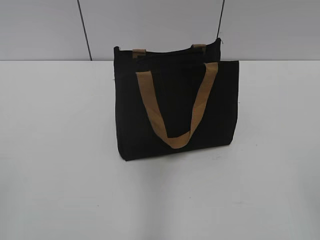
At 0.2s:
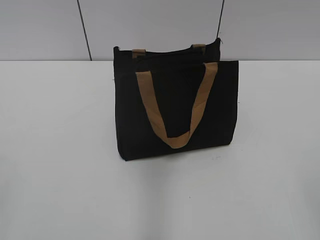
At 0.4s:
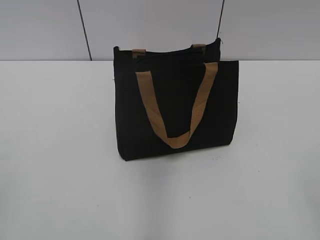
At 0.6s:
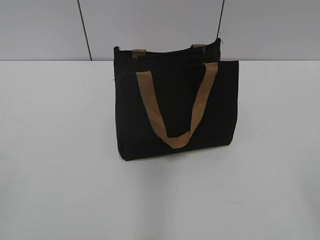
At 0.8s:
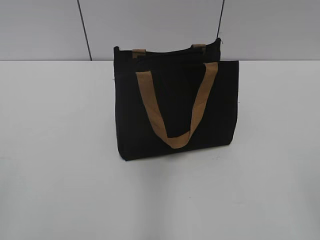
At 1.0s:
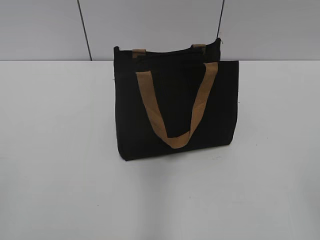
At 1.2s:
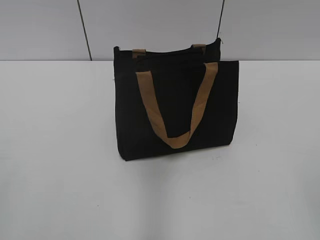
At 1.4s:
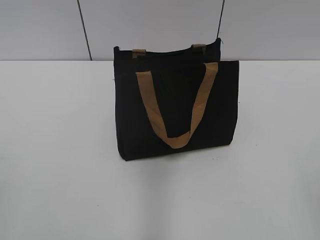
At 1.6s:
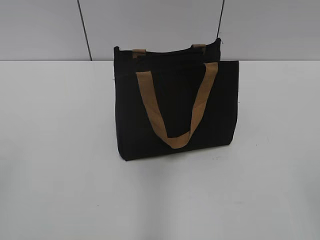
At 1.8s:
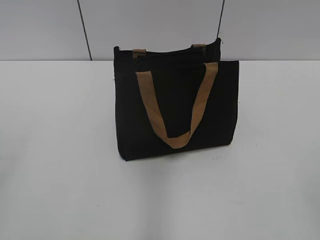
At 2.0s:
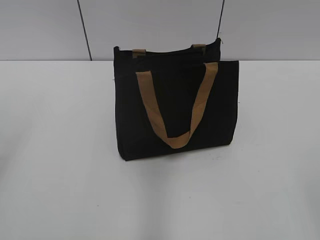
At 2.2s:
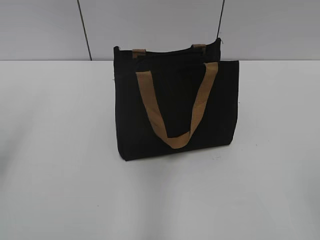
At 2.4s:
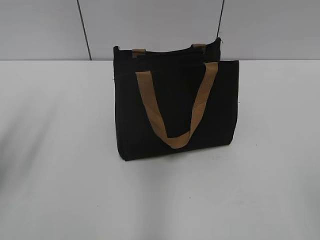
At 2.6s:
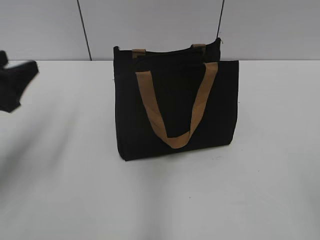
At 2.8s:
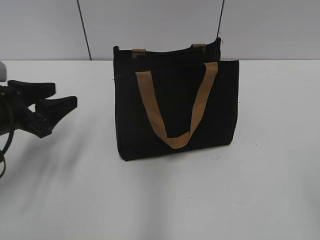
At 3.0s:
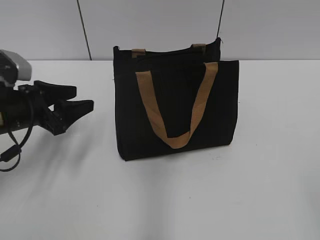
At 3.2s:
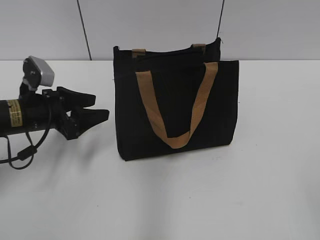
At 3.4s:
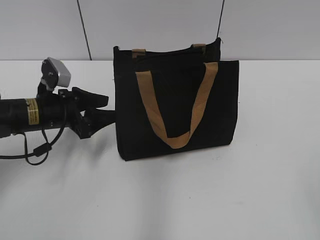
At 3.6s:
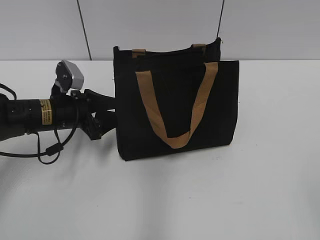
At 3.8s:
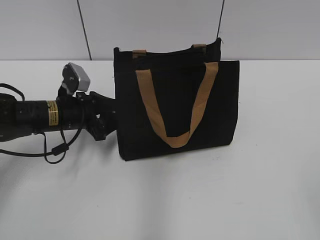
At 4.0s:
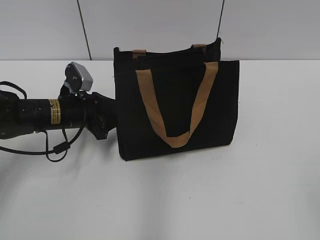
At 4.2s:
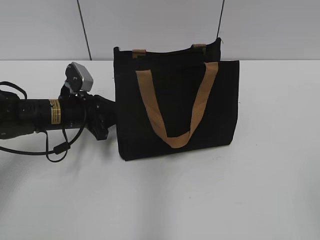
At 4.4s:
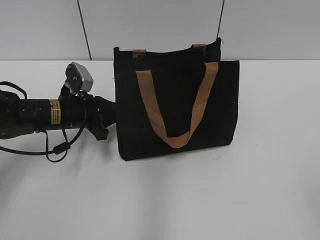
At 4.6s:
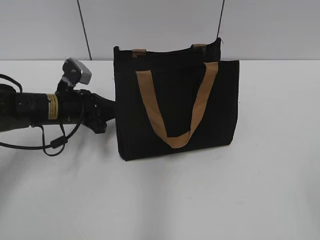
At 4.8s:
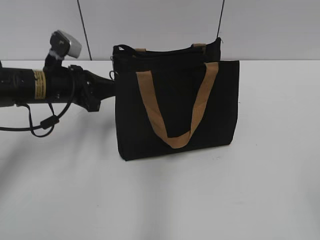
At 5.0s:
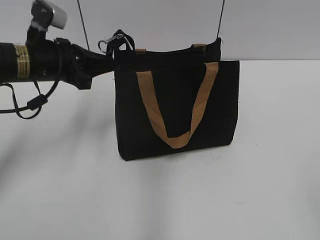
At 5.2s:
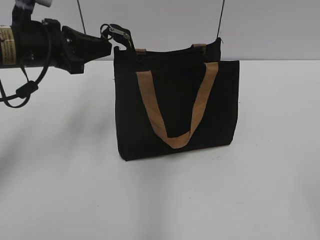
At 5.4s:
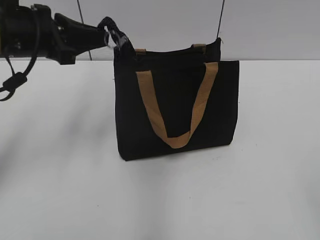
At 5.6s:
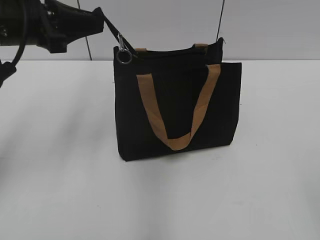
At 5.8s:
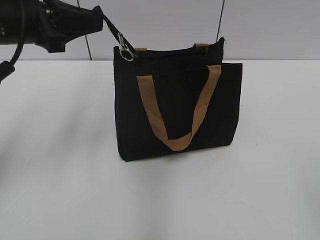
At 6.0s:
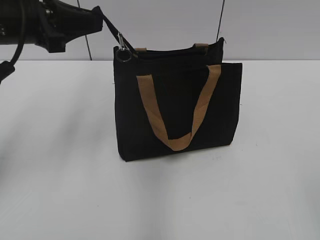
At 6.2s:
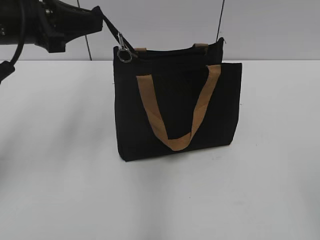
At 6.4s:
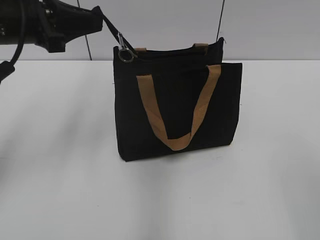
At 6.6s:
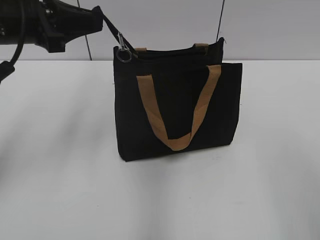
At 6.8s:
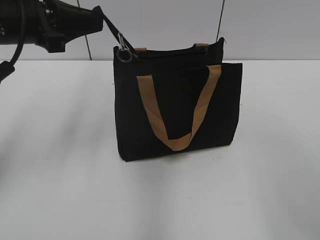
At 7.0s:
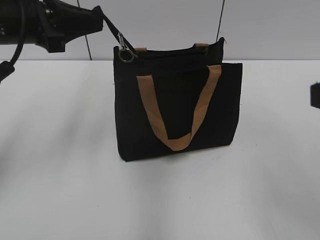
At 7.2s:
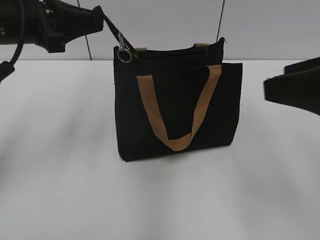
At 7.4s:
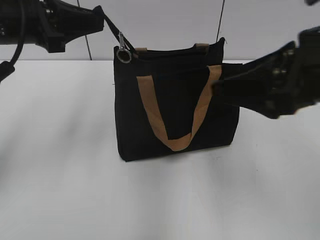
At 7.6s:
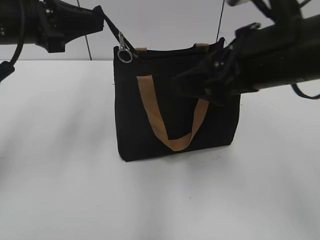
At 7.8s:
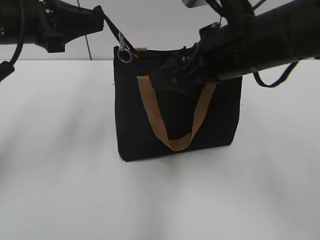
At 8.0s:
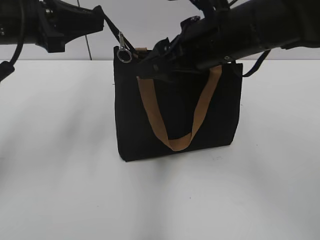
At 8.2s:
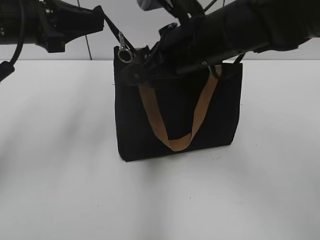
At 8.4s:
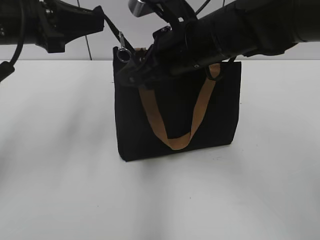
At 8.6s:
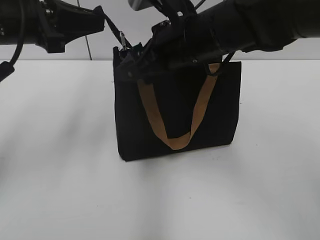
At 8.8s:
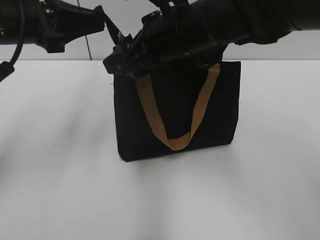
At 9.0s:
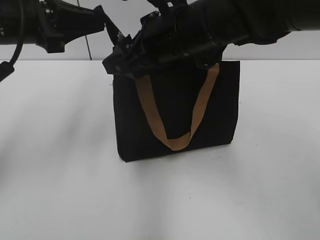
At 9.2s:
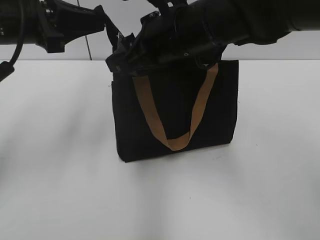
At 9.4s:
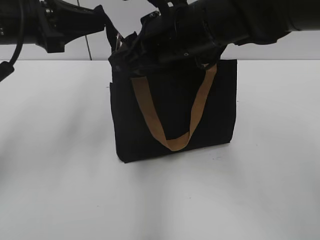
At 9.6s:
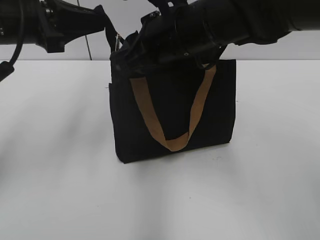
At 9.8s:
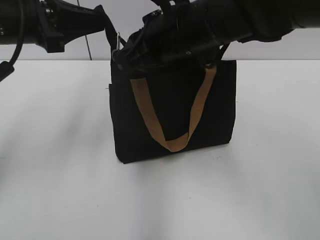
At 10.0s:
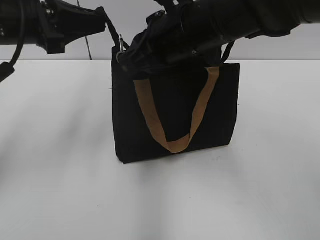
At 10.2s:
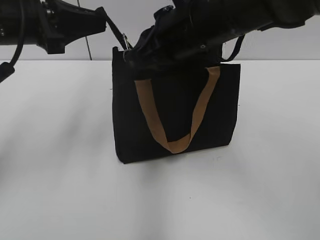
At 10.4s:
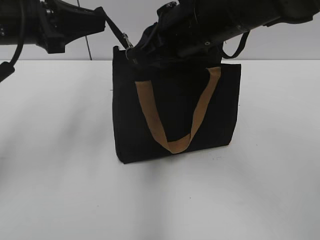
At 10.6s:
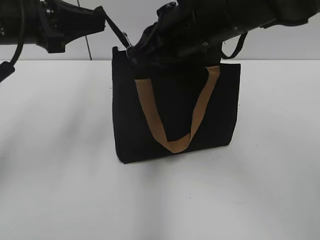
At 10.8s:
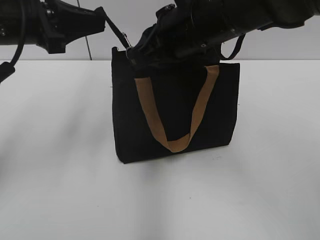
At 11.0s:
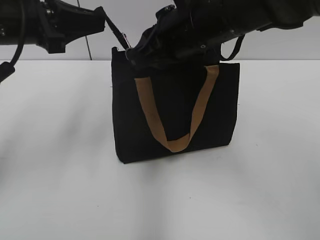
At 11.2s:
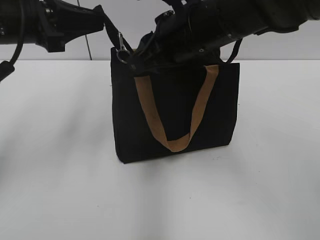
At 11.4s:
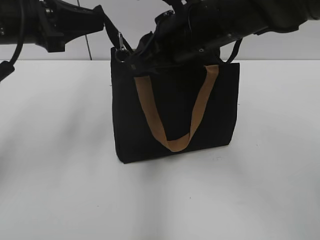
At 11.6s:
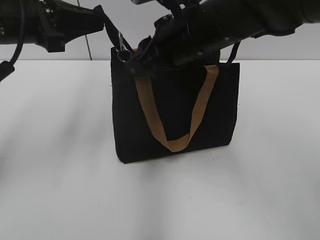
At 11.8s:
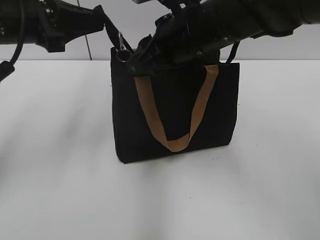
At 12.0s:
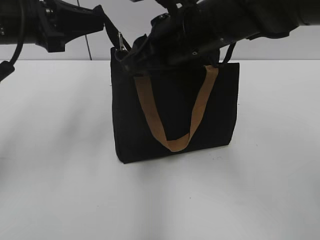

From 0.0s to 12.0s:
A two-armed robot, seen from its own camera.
From 1.6s to 3.0s: The left gripper shifts approximately 35 cm forward and downward.
From 3.0s to 4.4s: The left gripper is displaced forward, to the right and downward by some 10 cm, and closes.
From 4.4s to 6.0s: The left gripper shifts roughly 20 cm upward.
From 6.0s to 7.6s: The right gripper shifts some 25 cm forward and to the left.
From 7.6s to 9.0s: The right gripper heads to the left and forward, covering approximately 15 cm.
From 9.0s to 10.4s: The right gripper closes.
From 10.4s to 12.0s: The right gripper opens up.

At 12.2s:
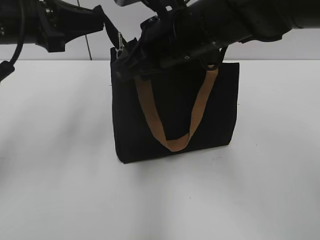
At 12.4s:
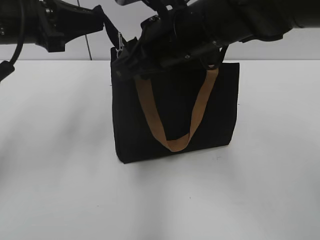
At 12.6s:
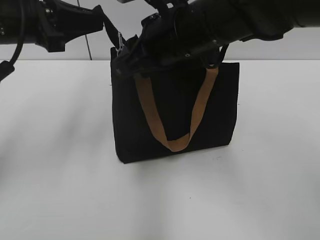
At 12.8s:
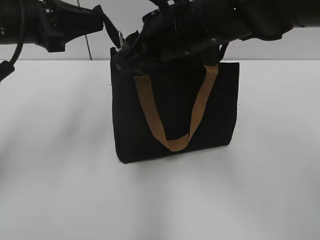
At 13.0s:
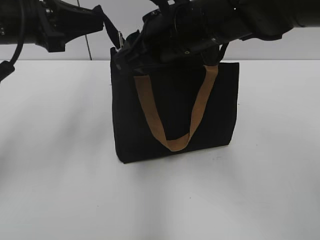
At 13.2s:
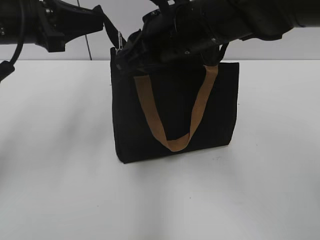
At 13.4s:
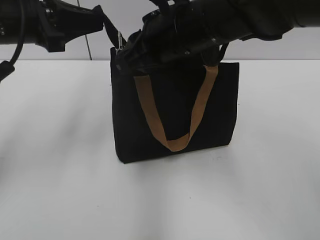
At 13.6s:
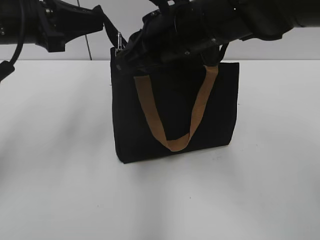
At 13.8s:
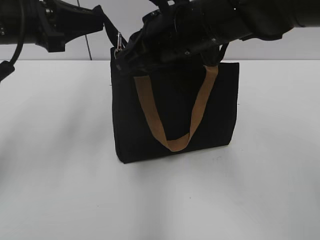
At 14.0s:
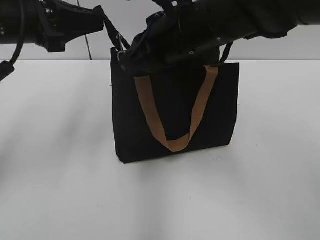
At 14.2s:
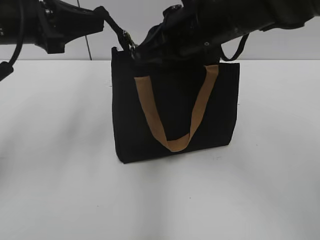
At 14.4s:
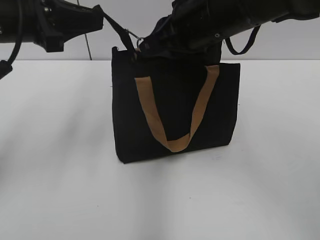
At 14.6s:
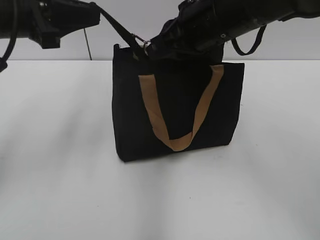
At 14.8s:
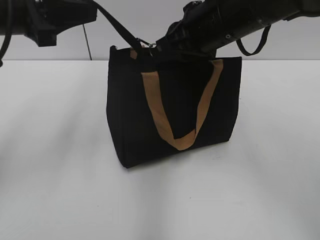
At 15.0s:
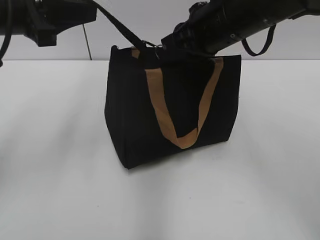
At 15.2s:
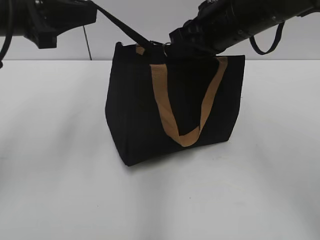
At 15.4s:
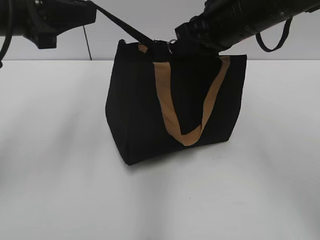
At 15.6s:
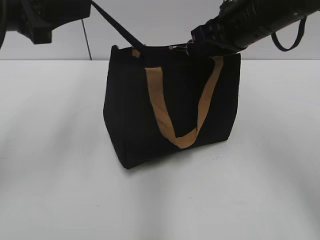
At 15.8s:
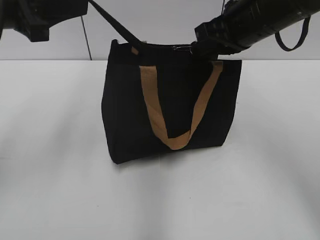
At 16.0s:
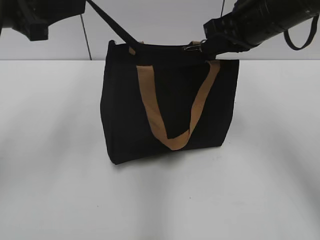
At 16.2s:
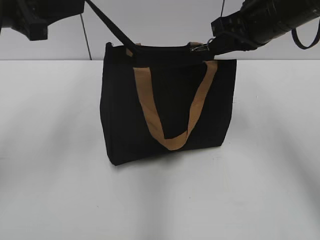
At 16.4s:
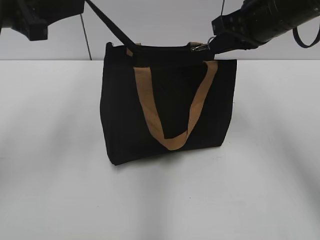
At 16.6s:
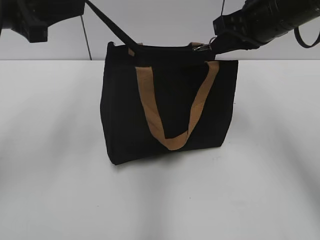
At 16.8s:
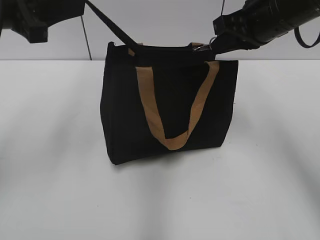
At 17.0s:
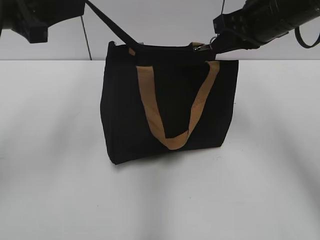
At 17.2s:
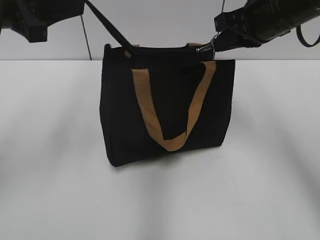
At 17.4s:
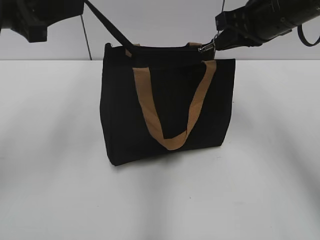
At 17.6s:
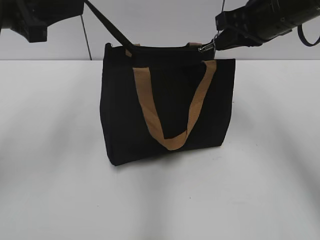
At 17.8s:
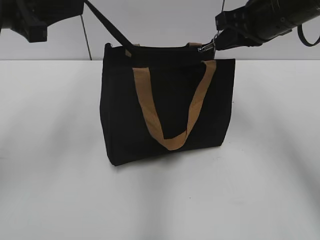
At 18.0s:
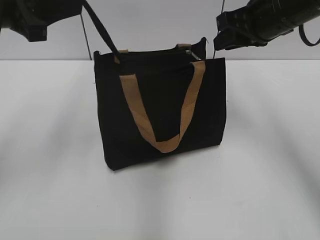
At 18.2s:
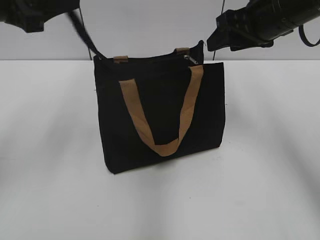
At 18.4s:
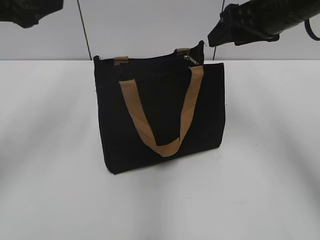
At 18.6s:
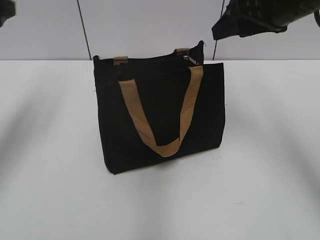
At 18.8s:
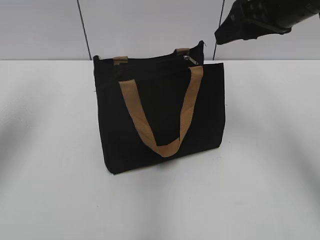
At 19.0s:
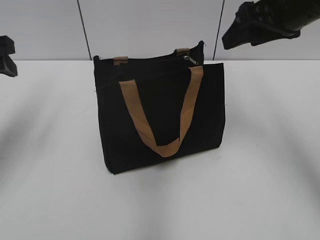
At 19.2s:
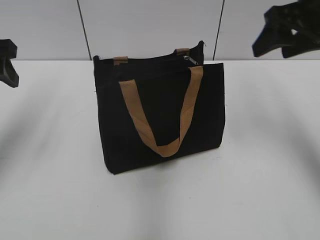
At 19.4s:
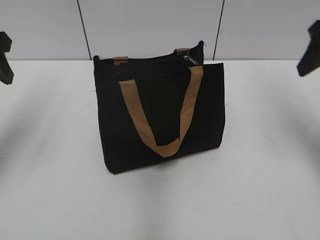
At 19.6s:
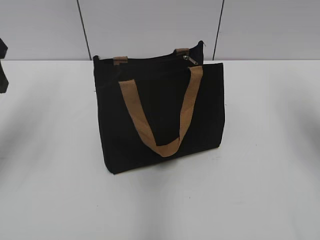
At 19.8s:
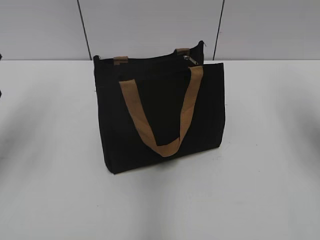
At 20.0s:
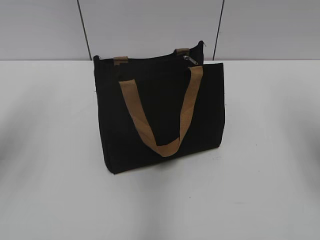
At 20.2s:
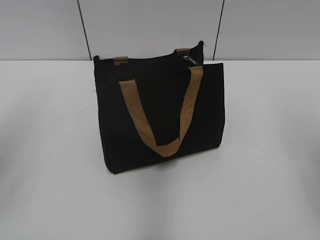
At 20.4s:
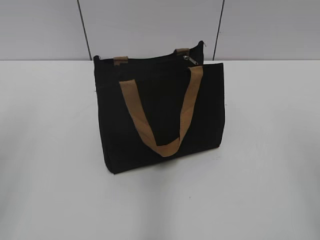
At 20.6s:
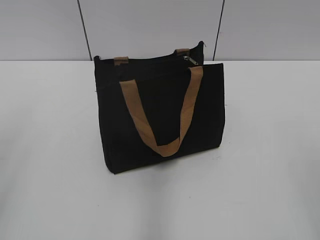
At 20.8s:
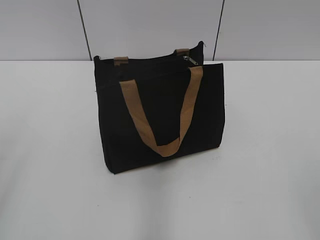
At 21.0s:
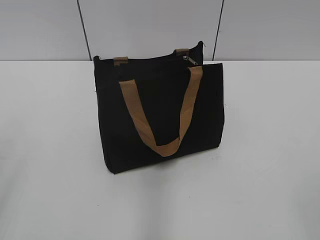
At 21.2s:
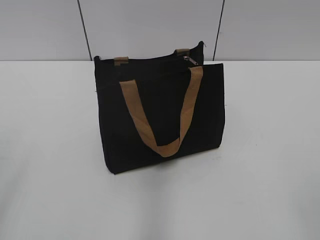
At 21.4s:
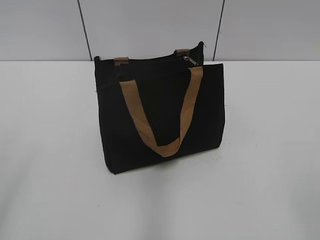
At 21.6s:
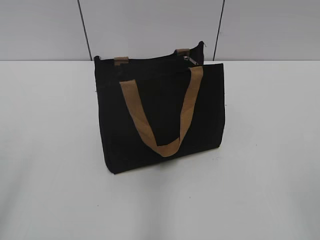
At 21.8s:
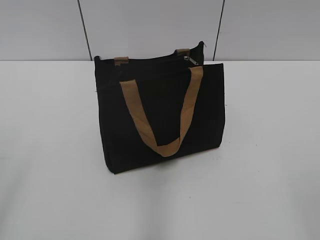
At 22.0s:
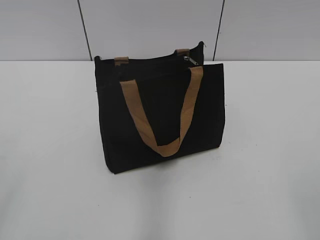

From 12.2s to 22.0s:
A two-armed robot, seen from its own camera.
Step, from 12.2s to 18.0s: Zip up the bag with your right hand.
From 12.2s to 13.6s: Neither gripper changes place.
From 13.6s to 15.0s: The right gripper goes some 5 cm to the right.
From 15.0s to 16.4s: The right gripper goes about 5 cm to the right.
From 16.4s to 17.8s: Neither gripper changes place.
From 17.8s to 19.2s: The right gripper ends up about 5 cm from where it was, and opens up. Meanwhile the left gripper shifts roughly 5 cm to the left, and opens up.
From 19.2s to 20.6s: The right gripper shifts approximately 25 cm backward, while the left gripper goes roughly 15 cm backward.

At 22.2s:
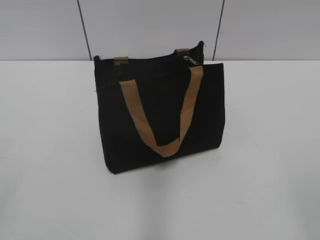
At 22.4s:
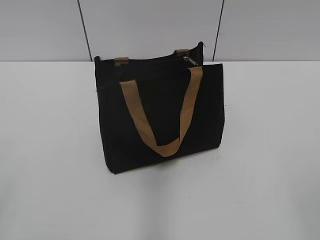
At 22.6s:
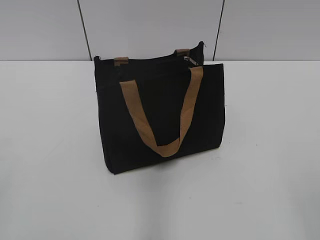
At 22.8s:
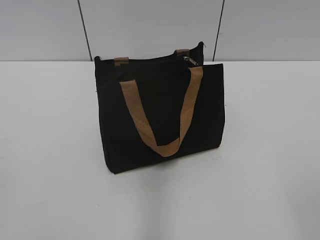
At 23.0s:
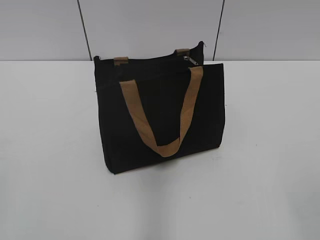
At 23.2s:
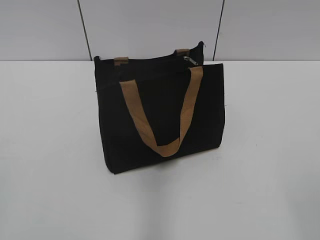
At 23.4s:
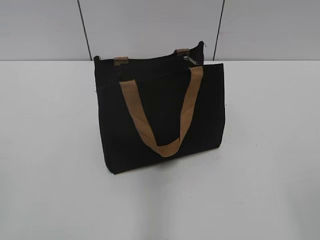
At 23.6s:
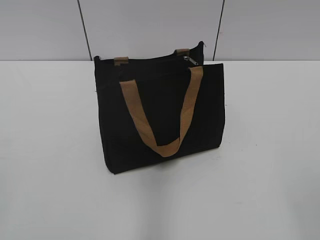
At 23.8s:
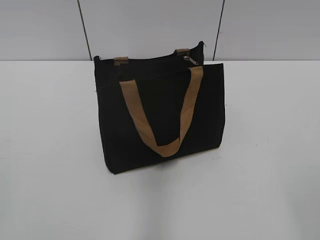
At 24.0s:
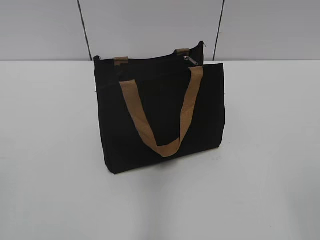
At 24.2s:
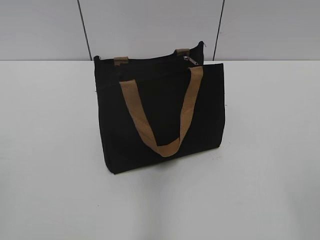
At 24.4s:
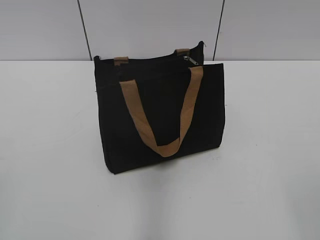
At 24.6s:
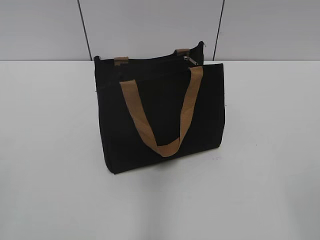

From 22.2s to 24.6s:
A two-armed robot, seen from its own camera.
From 23.4s to 24.6s: The two grippers keep their place.
